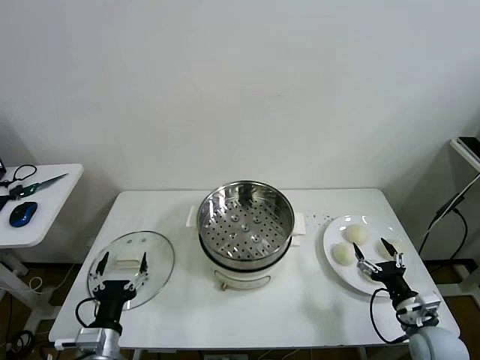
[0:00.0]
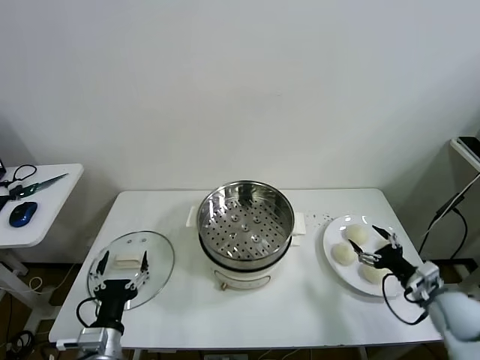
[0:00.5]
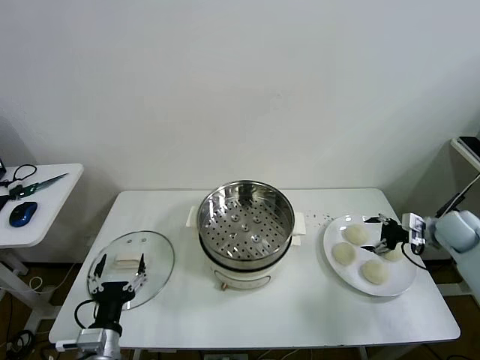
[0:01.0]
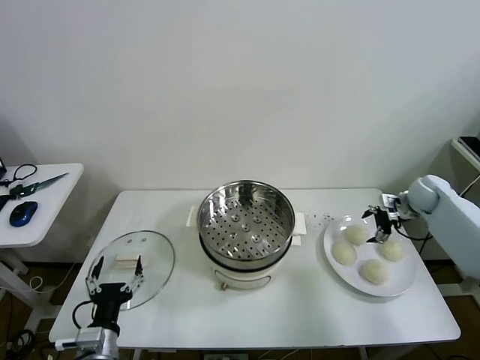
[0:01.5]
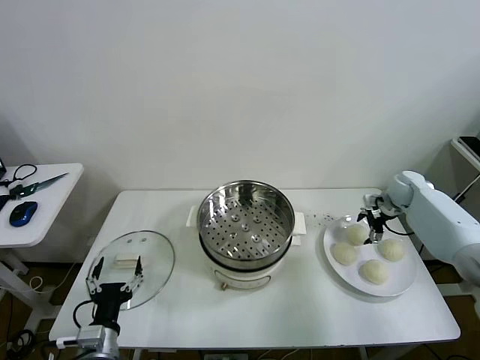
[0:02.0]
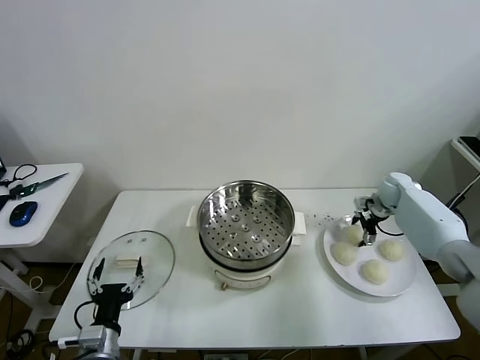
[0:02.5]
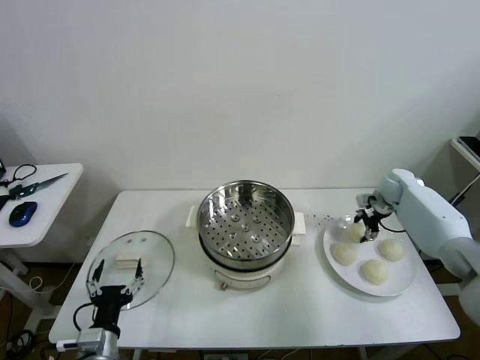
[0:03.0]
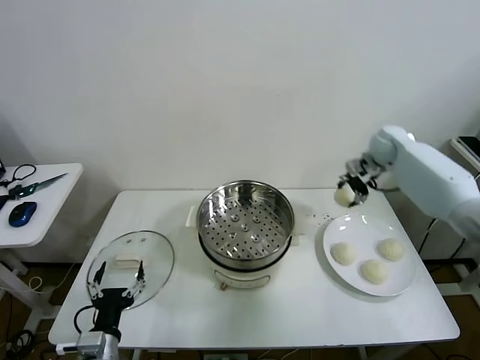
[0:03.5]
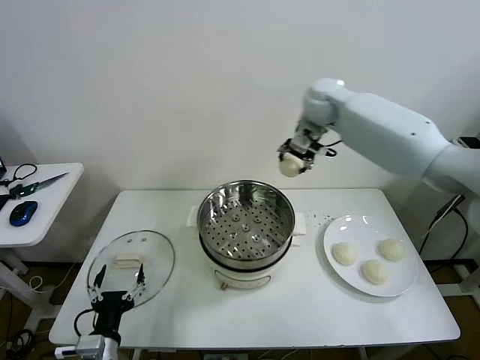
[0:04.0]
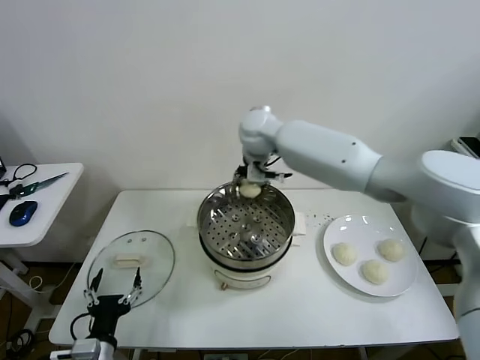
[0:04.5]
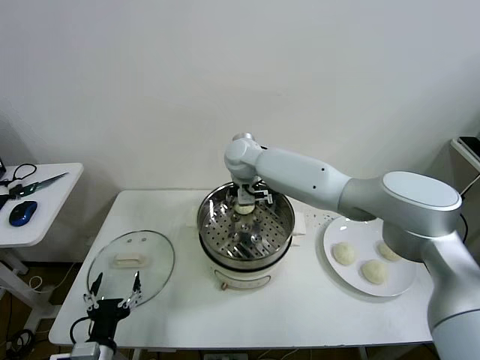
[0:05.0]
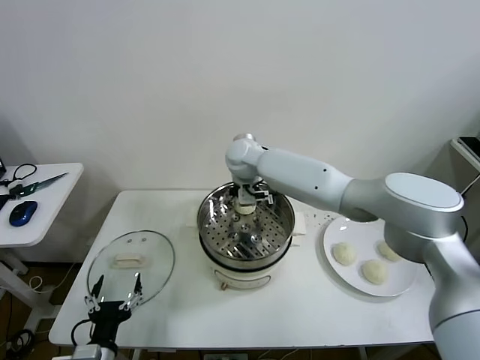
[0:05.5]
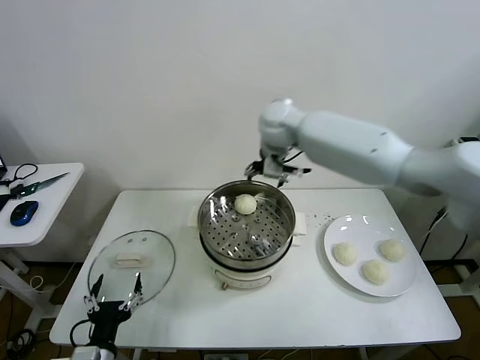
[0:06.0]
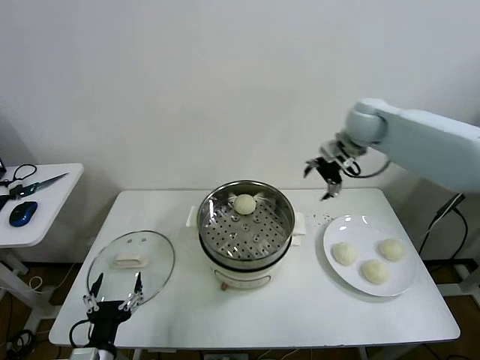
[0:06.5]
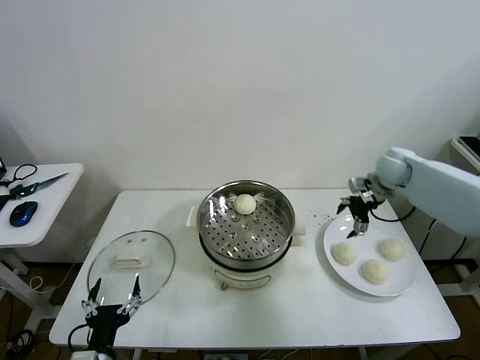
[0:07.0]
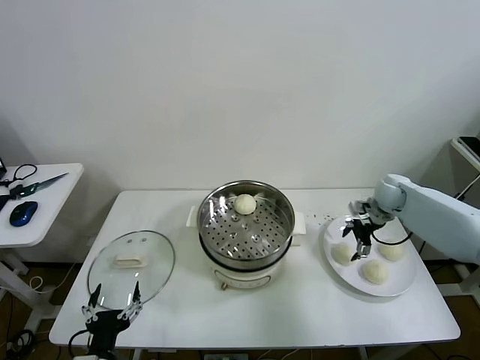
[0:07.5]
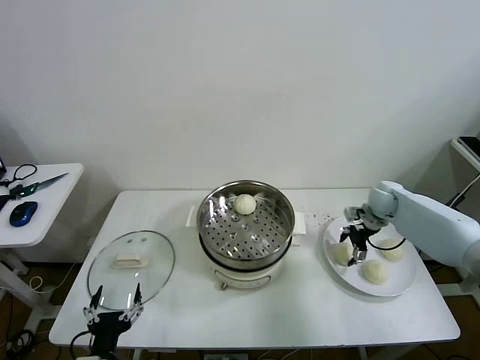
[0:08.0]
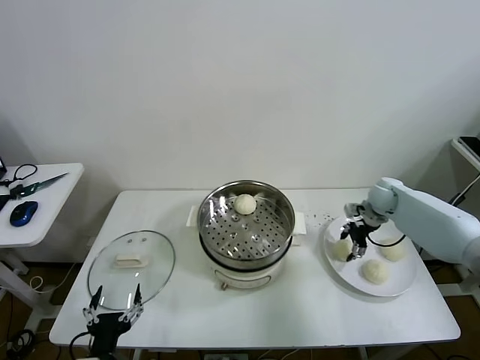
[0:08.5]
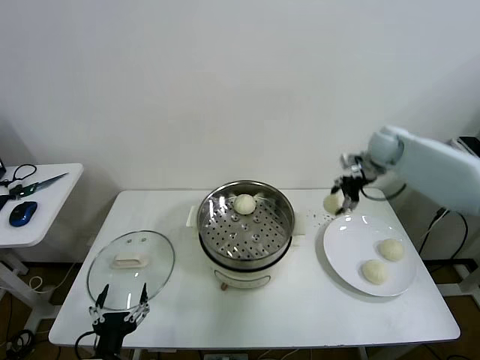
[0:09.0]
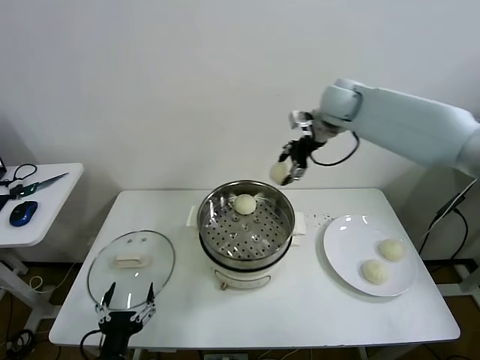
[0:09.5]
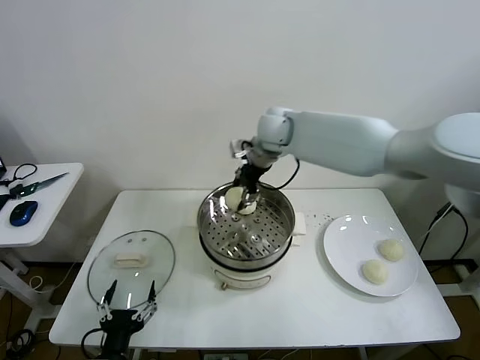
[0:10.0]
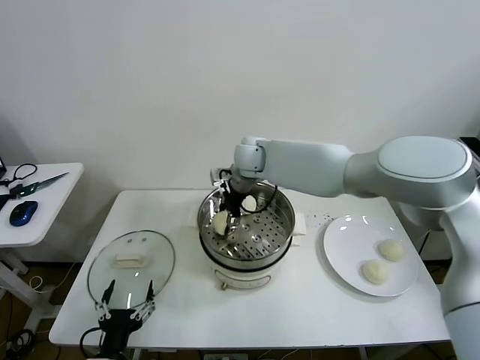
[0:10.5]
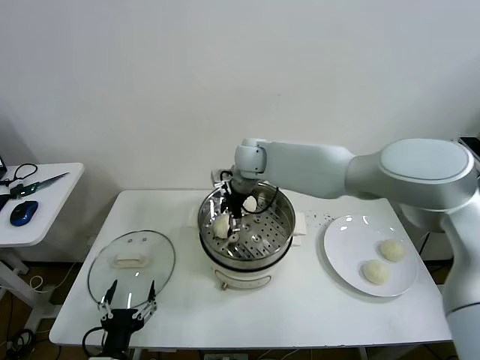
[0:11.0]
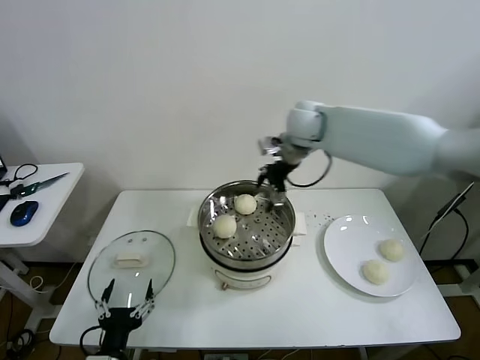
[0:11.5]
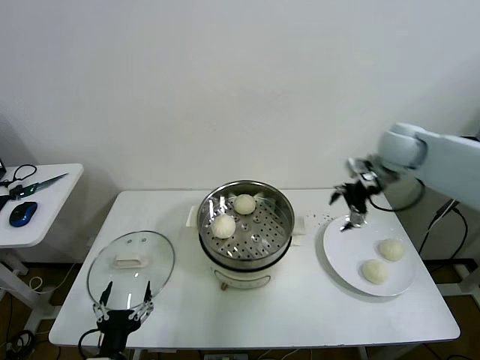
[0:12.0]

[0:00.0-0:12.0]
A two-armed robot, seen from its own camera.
Task of the whole recording: take steamed baozi put them in steamer then cover it.
Step, 0:00.0 to 0:02.5: Grasp the baozi in the plate with right gripper.
Step, 0:03.0 to 0:05.5: Place the baozi on the steamer with right gripper.
Step, 0:06.0 to 0:08.0: Grasp the baozi in the plate with right gripper.
Step, 0:08.5 to 0:10.5: Place the baozi on the steamer with right gripper.
0:02.0 to 0:04.0: The right gripper goes roughly 40 cm to the left and upward, and closes its fingers.
0:04.0 to 0:06.0: The right gripper reaches some 15 cm to the left, then returns, and opens its fingers.
0:06.0 to 0:08.0: The right gripper moves to the right and downward, approximately 35 cm.
0:08.0 to 0:10.0: The right gripper heads to the left and upward, covering roughly 40 cm, and closes up.
0:10.0 to 0:12.0: The right gripper shifts roughly 30 cm to the right, and opens up.

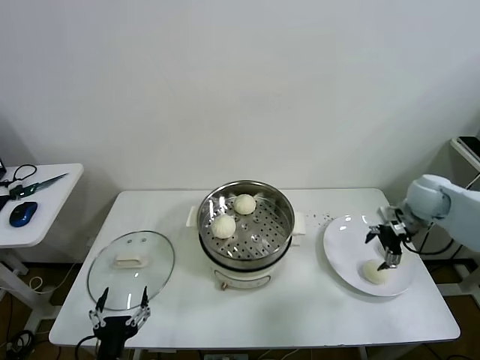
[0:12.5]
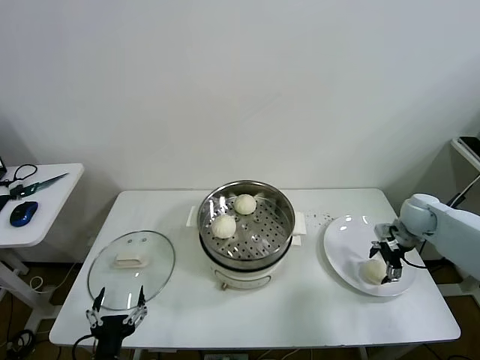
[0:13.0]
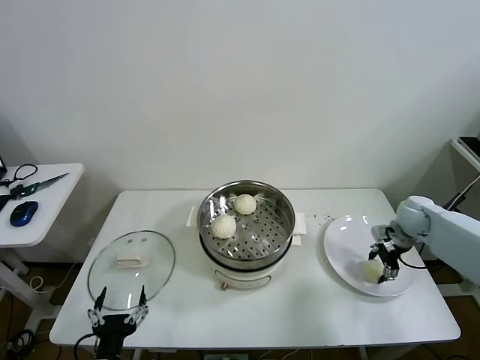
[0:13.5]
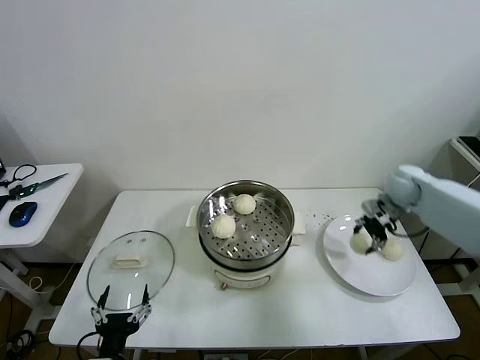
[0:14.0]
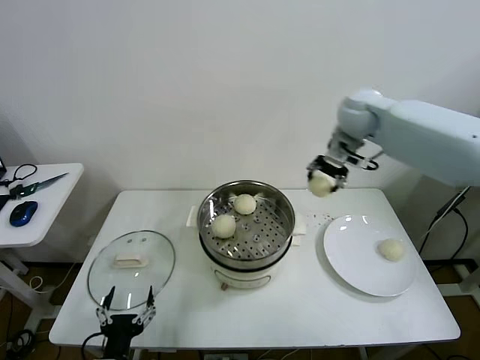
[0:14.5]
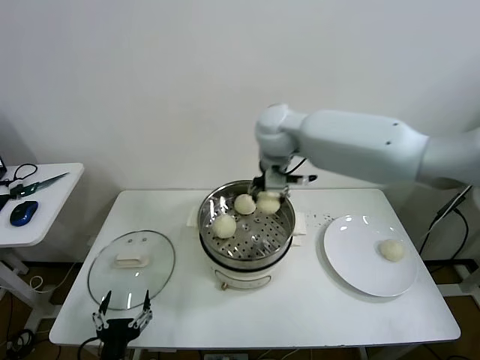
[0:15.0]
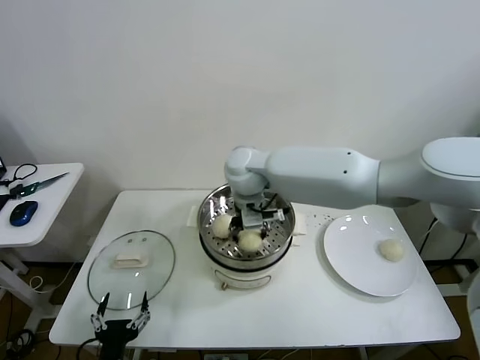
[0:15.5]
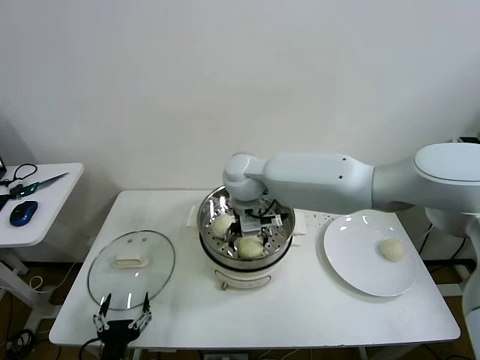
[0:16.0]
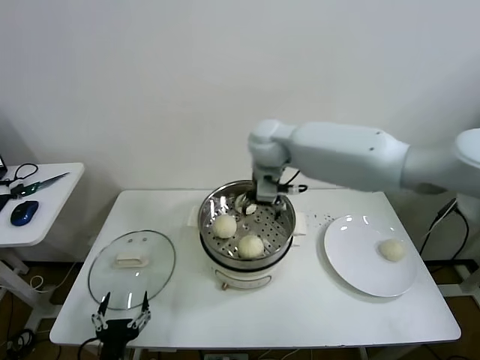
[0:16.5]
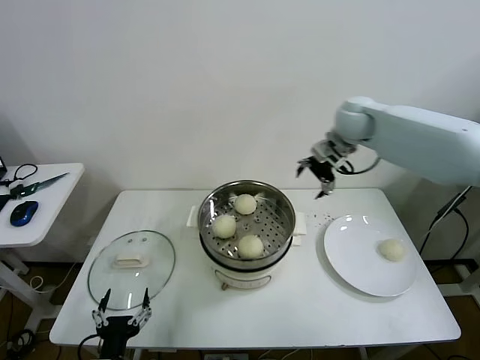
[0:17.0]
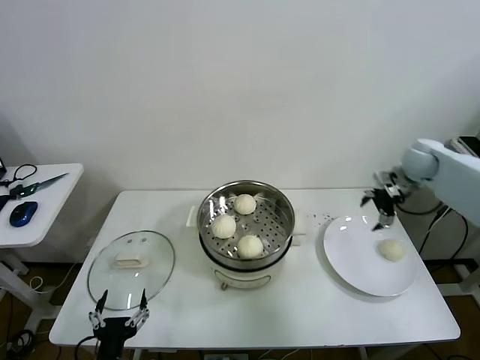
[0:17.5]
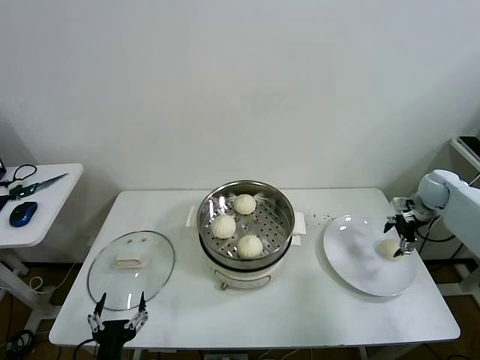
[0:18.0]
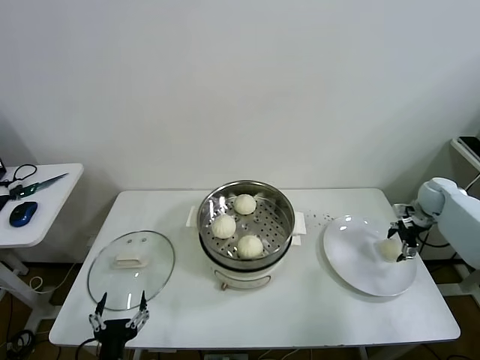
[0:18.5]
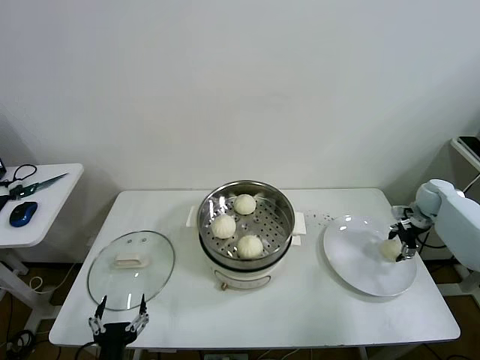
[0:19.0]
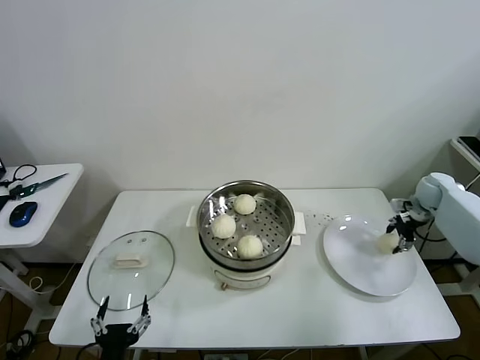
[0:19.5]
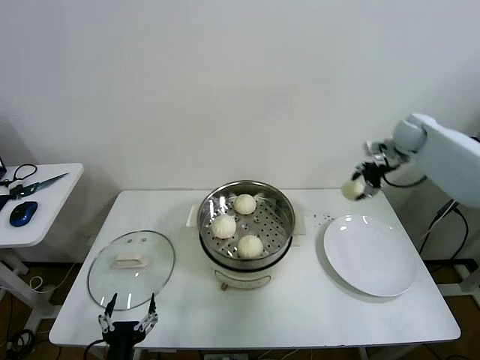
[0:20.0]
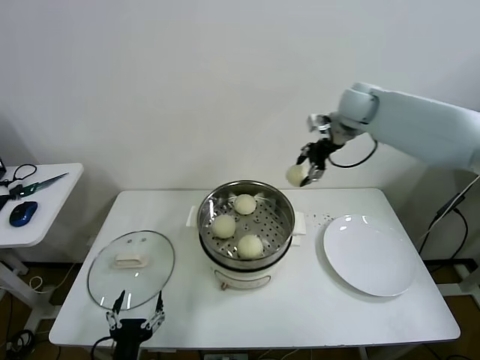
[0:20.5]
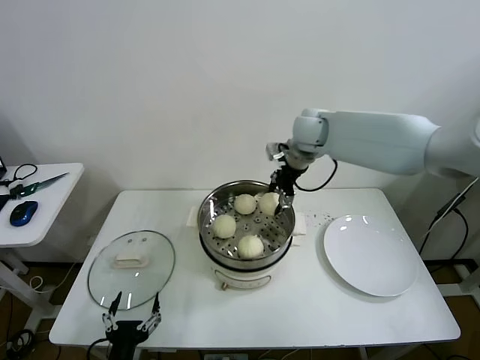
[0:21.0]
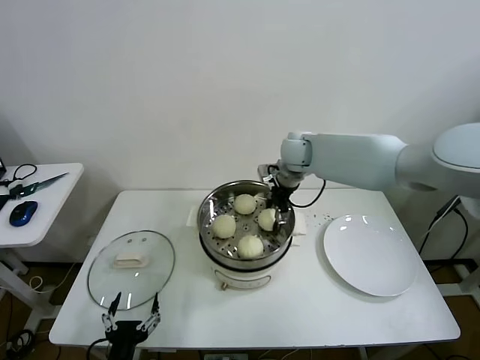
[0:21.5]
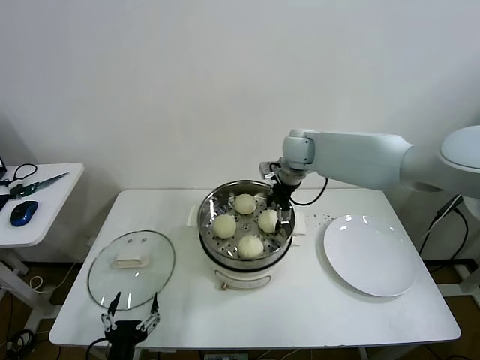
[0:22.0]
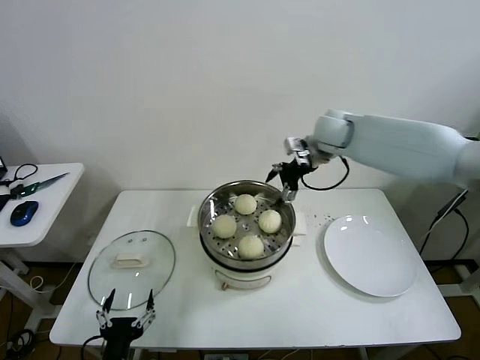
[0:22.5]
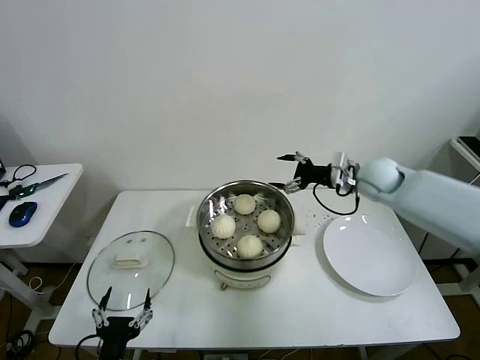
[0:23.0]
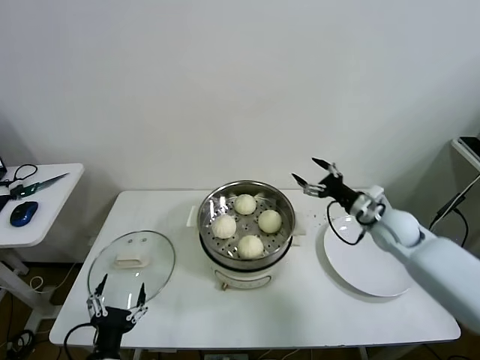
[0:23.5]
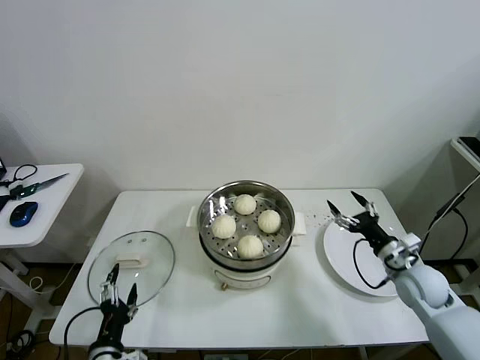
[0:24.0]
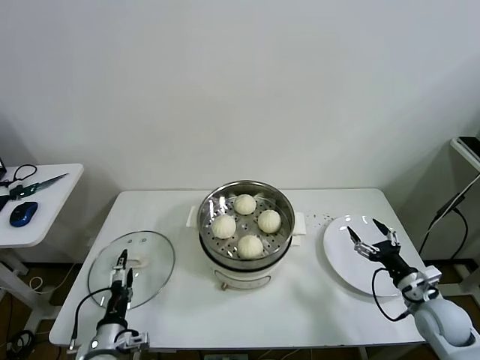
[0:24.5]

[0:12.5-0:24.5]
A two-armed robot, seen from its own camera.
Task of the whole recording: take steamed baozi put them in steamer then cover it.
Step, 0:14.0 to 0:16.0: Place the baozi on the steamer with right gripper.
Step, 0:16.5 to 0:19.0: Grasp the baozi in the plate with right gripper.
Step, 0:19.5 to 0:22.0: Place the baozi on the steamer with right gripper.
0:12.5 to 0:14.5: The right gripper travels to the left, upward and forward by approximately 30 cm, and closes.
0:14.5 to 0:16.5: The right gripper shifts approximately 15 cm to the left, and opens.
0:16.5 to 0:18.5: The right gripper shifts about 50 cm to the right and downward.
0:18.5 to 0:20.5: The right gripper travels to the left and upward by some 35 cm, and closes its fingers.
0:20.5 to 0:22.5: The right gripper heads downward, covering approximately 5 cm, and opens up.
0:22.5 to 0:24.5: The left gripper goes approximately 10 cm forward and downward, while the right gripper heads backward, downward and to the right, covering approximately 50 cm.

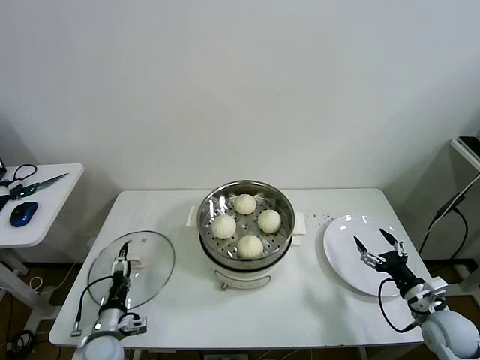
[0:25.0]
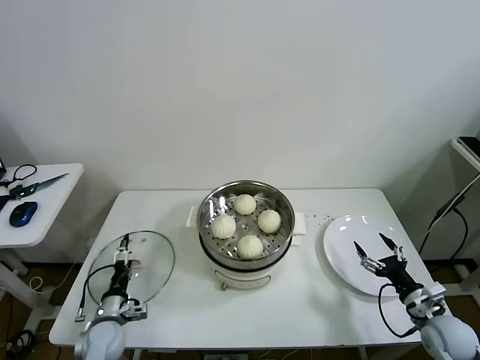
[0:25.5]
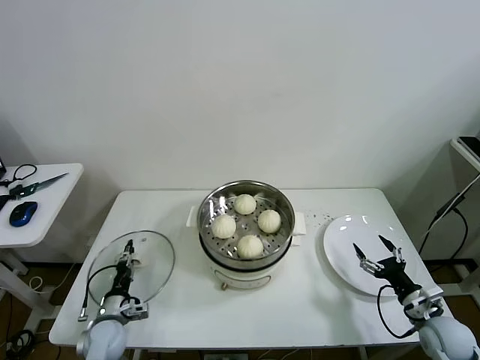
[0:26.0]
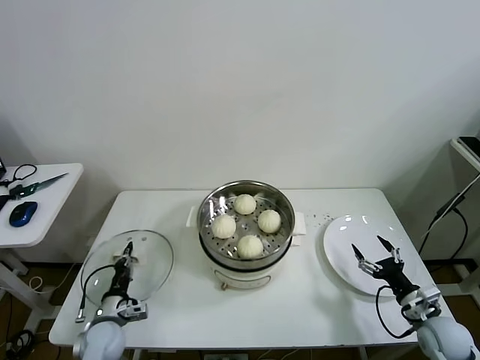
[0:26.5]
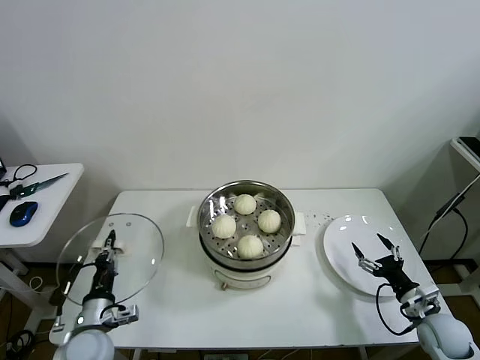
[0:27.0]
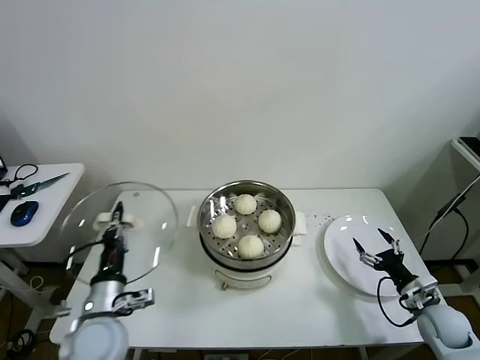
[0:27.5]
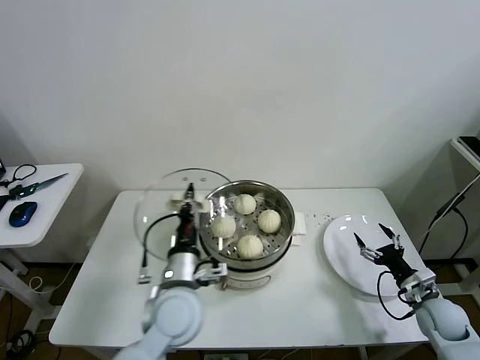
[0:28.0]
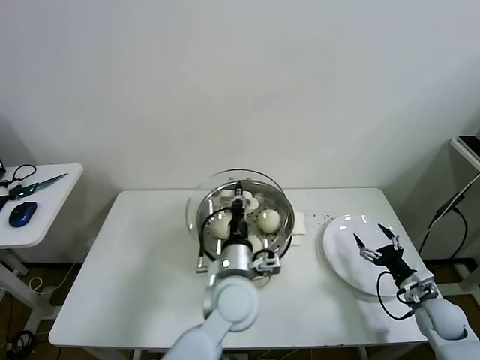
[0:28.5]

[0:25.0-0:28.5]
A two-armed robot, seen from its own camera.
Task of the whole recording: take steamed baozi put them in steamer then cover it.
0:25.0 to 0:27.0: The left gripper shifts some 5 cm upward, and closes up.
0:27.0 to 0:28.5: The left gripper heads to the right and upward, covering about 30 cm.
